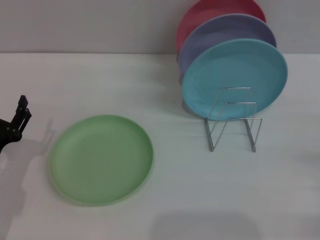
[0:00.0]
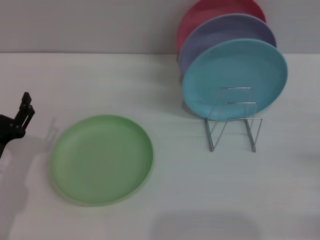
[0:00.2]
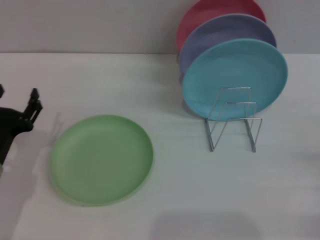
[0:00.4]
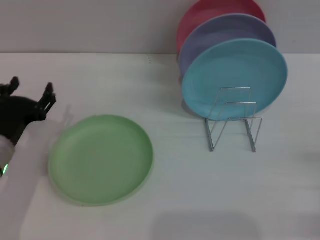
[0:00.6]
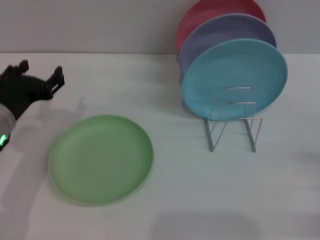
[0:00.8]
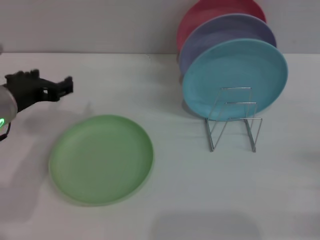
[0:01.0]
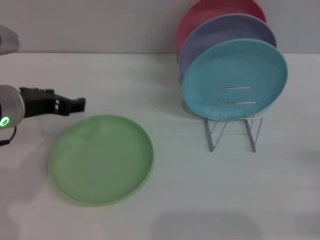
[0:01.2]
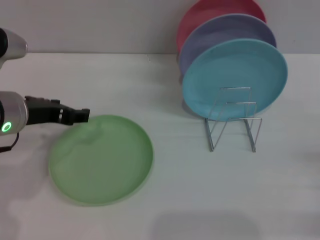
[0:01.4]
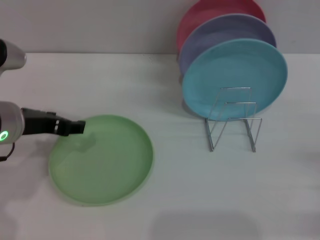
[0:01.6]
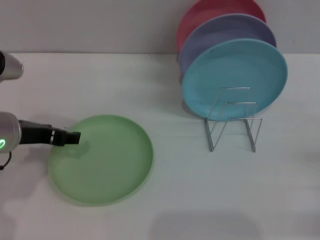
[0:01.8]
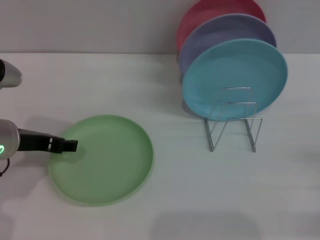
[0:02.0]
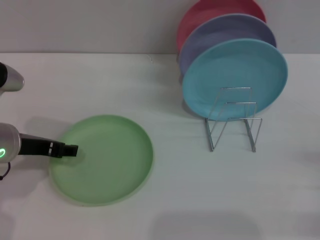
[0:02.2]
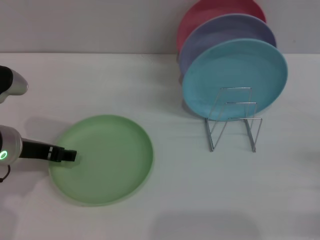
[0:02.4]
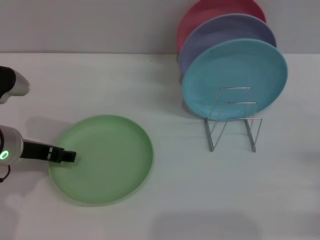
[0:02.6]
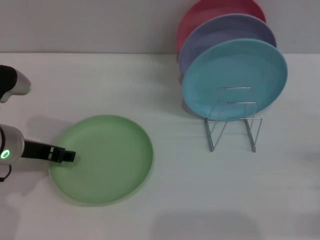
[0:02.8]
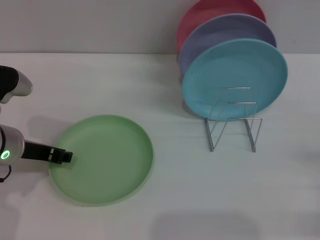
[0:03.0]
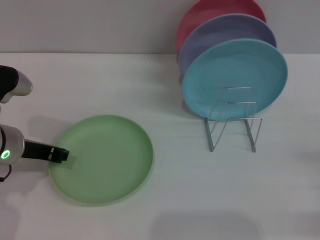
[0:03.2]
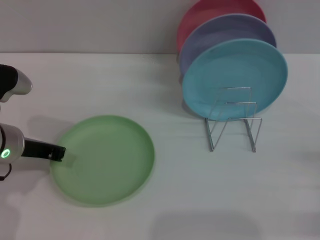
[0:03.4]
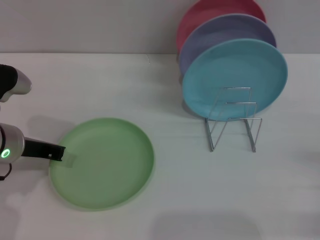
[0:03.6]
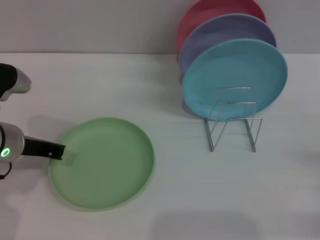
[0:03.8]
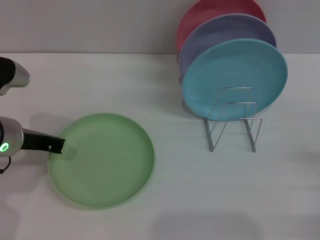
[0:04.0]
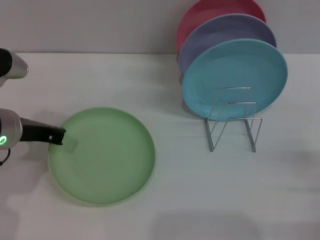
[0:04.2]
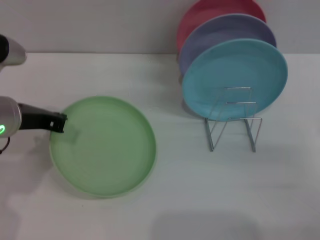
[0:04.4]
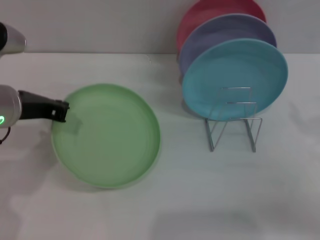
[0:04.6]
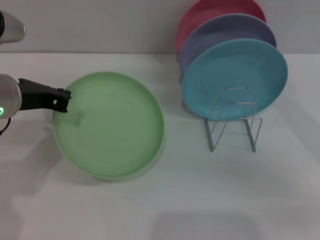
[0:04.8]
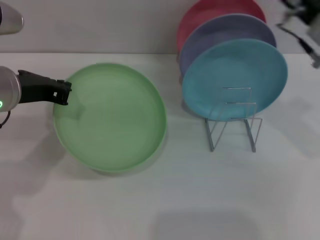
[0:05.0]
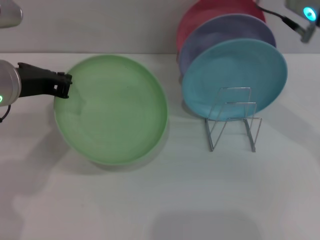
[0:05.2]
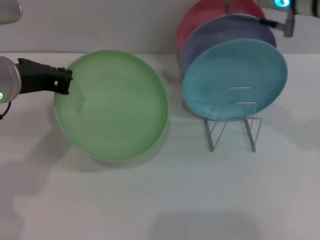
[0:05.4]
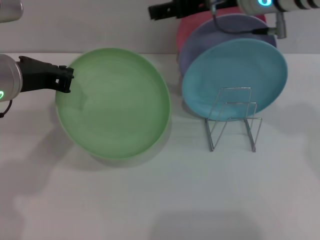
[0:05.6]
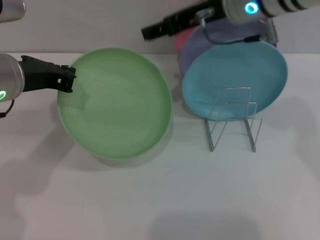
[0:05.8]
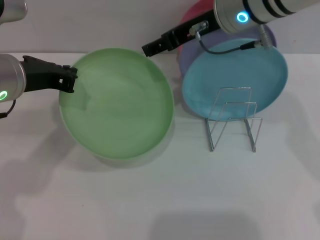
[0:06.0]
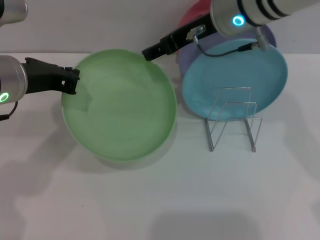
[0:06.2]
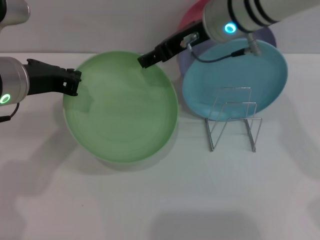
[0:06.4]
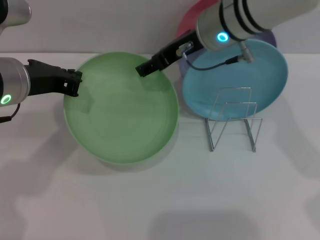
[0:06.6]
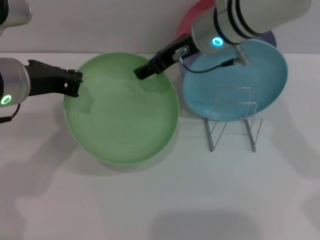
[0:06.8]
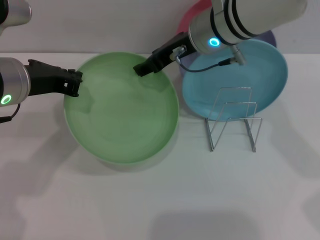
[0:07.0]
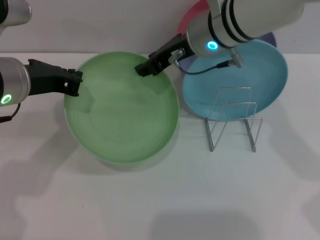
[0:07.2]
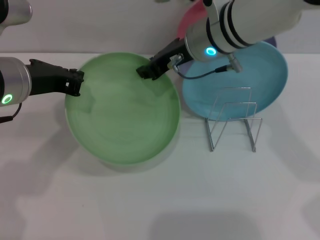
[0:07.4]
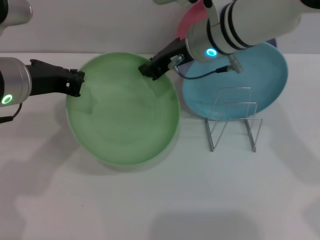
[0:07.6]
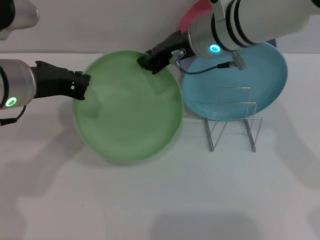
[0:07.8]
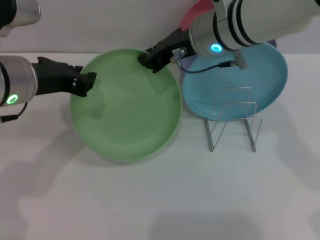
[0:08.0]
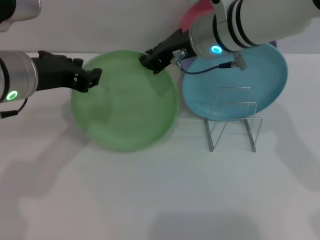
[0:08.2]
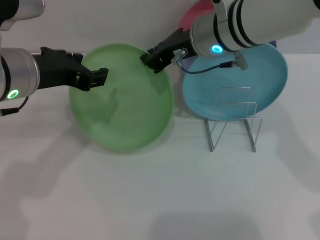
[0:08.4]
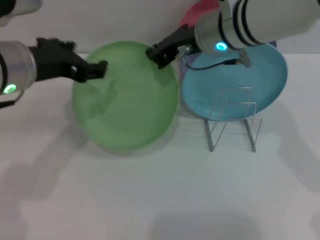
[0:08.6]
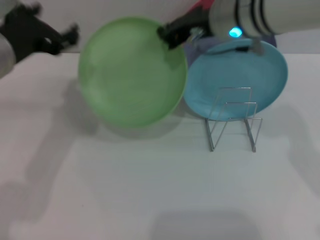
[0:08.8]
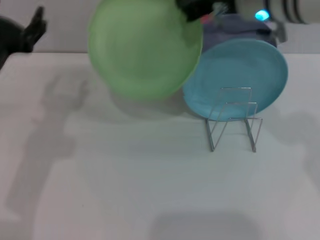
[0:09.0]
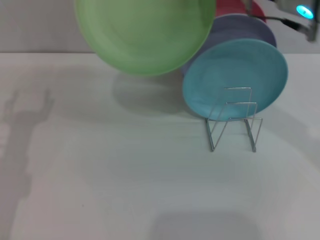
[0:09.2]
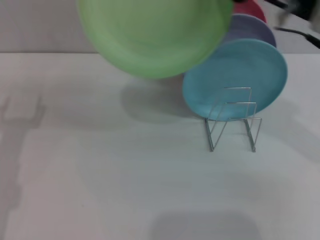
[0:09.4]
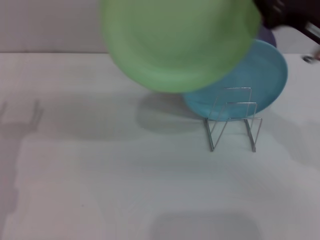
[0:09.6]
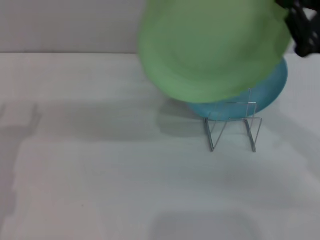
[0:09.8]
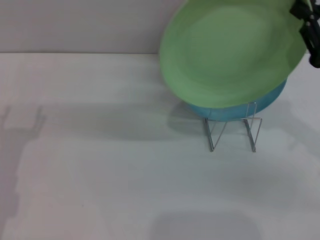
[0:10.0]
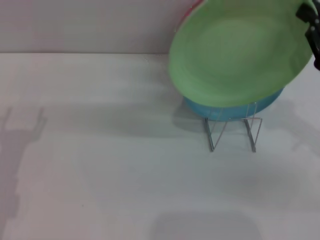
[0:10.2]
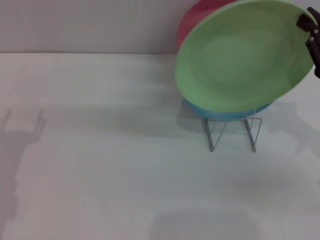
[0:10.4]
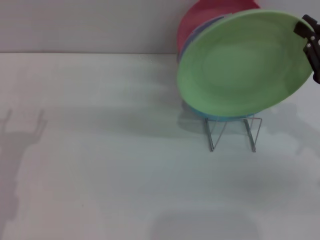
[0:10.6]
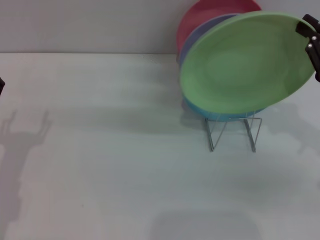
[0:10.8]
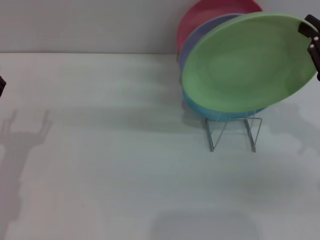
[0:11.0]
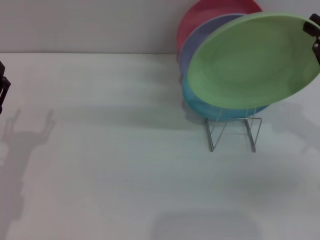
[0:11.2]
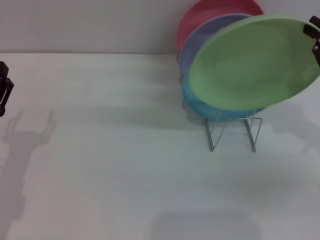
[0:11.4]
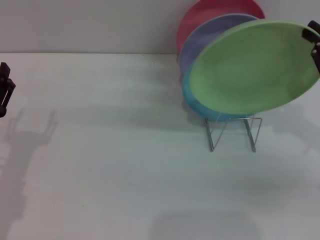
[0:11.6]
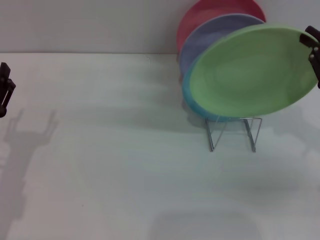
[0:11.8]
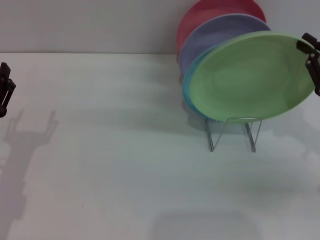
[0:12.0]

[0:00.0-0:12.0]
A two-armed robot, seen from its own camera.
Task of the whole recording: Grip the plate with one hand, pass it to the other, then set it on the shelf.
Step, 0:00.0 to 0:04.8: Pick up the plate with the left gripper.
Step, 0:05.0 to 0:09.4: Pass the plate from the left gripper to the right gripper.
0:00.0 to 0:01.6: The left gripper goes approximately 15 cm upward, forward and to the right.
0:01.6 to 0:03.0: The grippers stay close to where they were, moving slightly.
0:03.0 to 0:04.4: The right gripper shifts by some 5 cm; the left gripper closes up.
0:04.4 to 0:06.0: The right gripper shifts approximately 35 cm to the left, forward and upward, while the left gripper travels upward by roughly 5 cm.
0:06.0 to 0:07.6: The right gripper changes place by about 5 cm, and closes.
0:07.6 to 0:09.0: The right gripper heads to the right and upward, covering approximately 10 cm, while the left gripper ends up approximately 5 cm from where it was, and opens its fingers.
0:09.0 to 0:10.4: The left gripper goes some 15 cm downward, to the left and backward. The right gripper shifts about 20 cm to the right, backward and downward.
0:10.4 to 0:12.0: The grippers stay close to where they were, moving slightly.

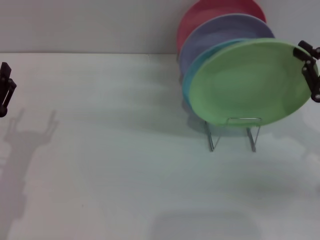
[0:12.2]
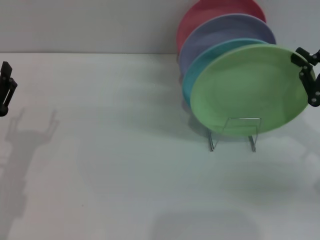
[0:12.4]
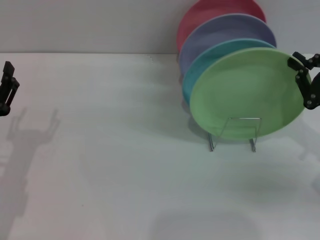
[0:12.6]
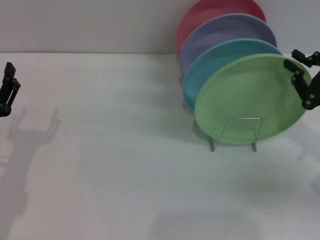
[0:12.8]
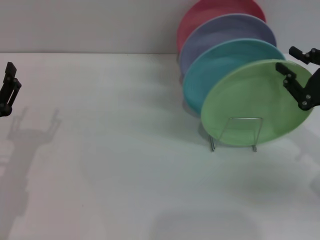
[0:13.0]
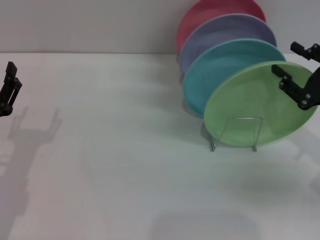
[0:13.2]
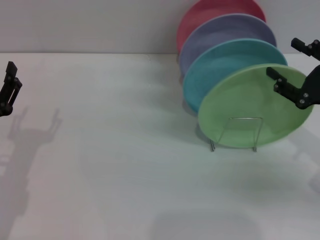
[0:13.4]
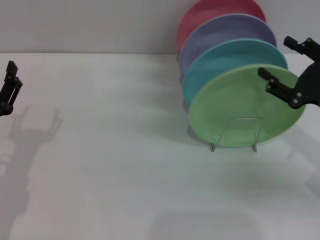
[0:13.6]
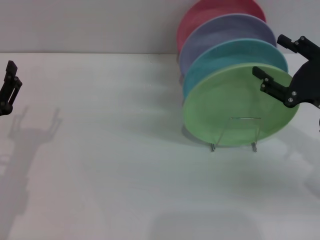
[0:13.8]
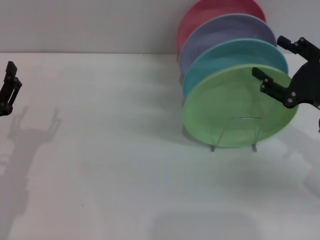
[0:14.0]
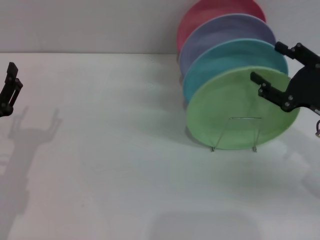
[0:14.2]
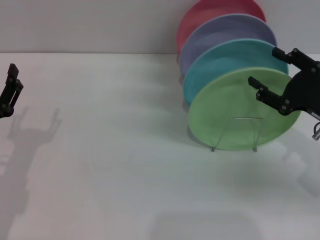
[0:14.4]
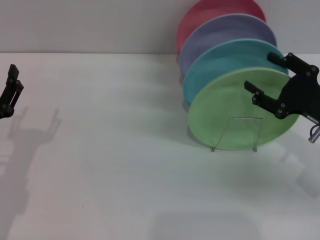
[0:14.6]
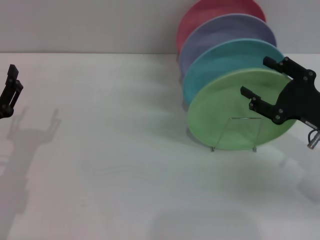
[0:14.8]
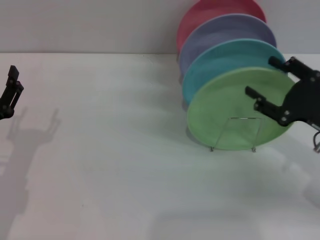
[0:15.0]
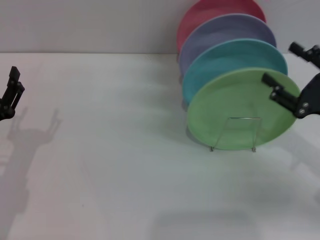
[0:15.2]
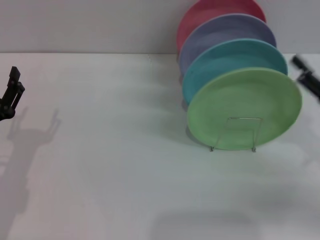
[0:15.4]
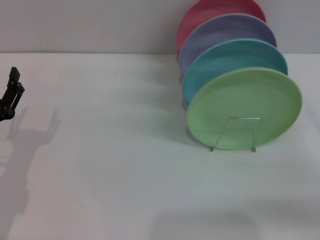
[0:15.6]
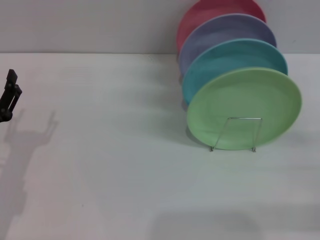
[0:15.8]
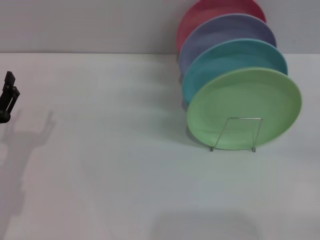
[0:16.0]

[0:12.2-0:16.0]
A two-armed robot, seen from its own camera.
Task of the whole recording: Grip the plate with one hand, pass it to the other, then set it on the shelf.
0:12.2 to 0:13.4: The right gripper opens up.
0:13.4 to 0:14.8: The right gripper opens its fingers.
0:14.8 to 0:16.0: The right gripper moves to the right and backward, approximately 15 cm.

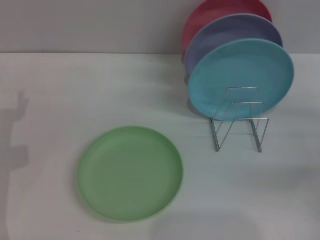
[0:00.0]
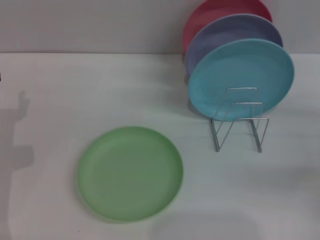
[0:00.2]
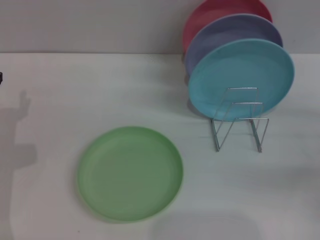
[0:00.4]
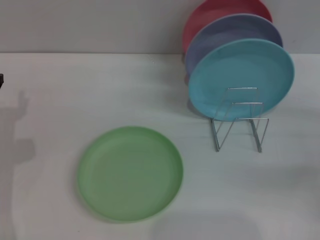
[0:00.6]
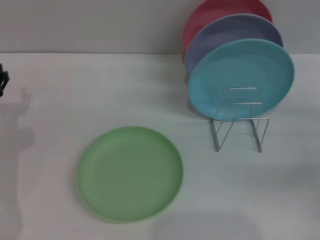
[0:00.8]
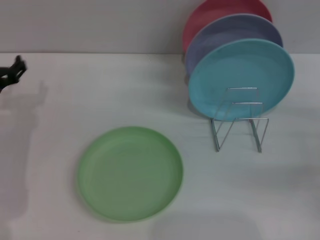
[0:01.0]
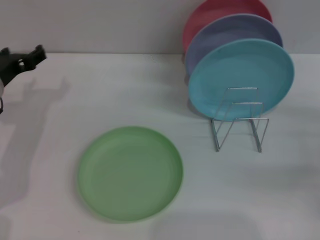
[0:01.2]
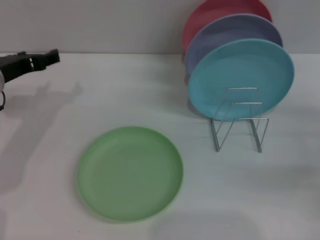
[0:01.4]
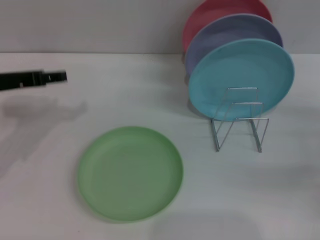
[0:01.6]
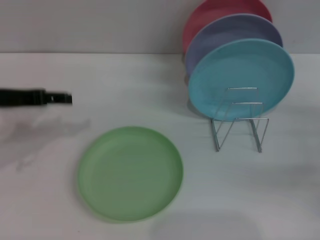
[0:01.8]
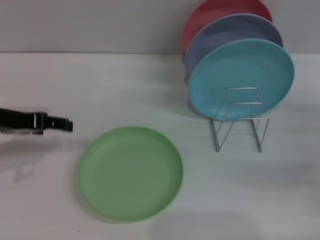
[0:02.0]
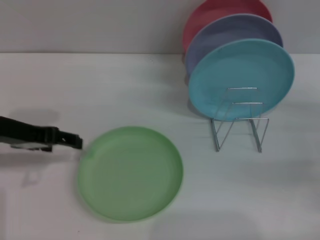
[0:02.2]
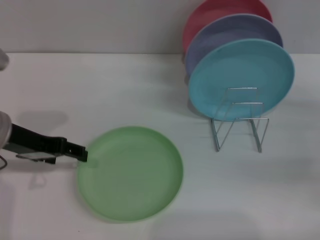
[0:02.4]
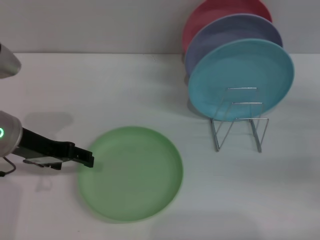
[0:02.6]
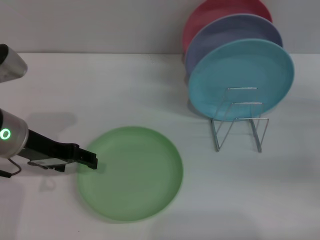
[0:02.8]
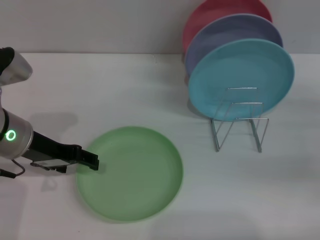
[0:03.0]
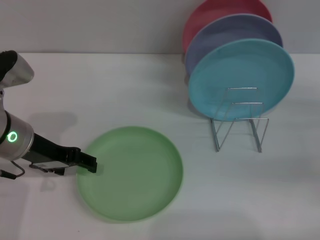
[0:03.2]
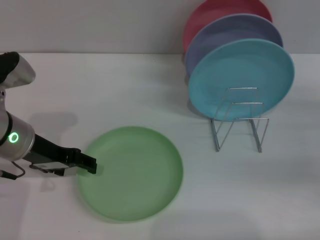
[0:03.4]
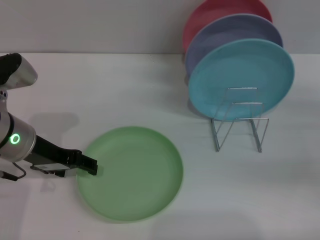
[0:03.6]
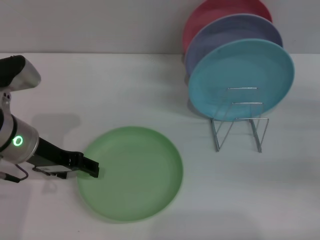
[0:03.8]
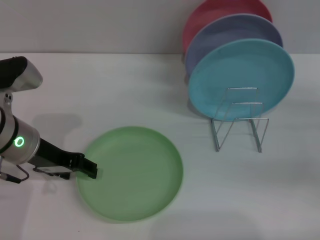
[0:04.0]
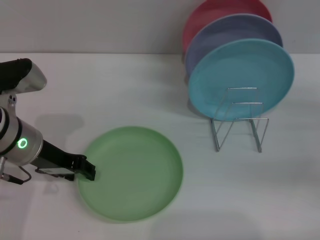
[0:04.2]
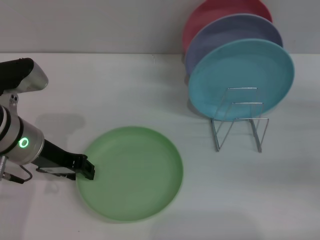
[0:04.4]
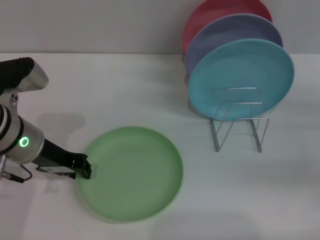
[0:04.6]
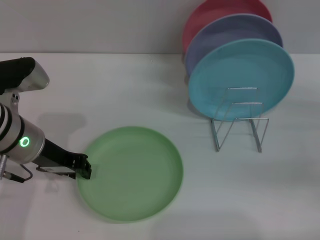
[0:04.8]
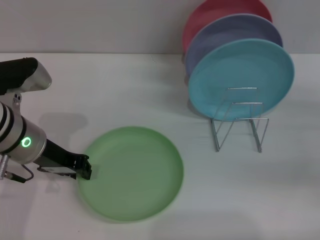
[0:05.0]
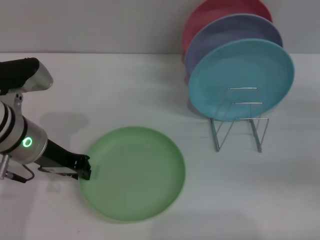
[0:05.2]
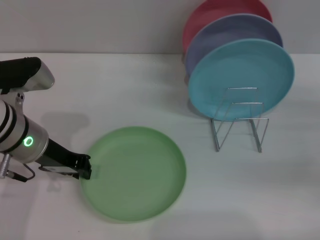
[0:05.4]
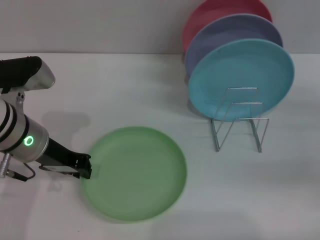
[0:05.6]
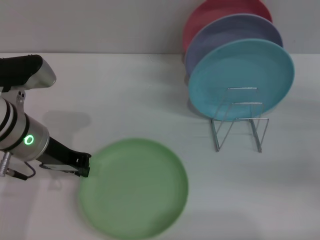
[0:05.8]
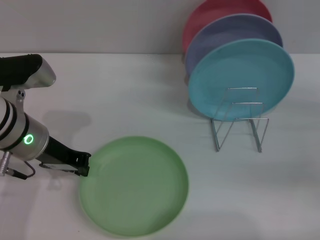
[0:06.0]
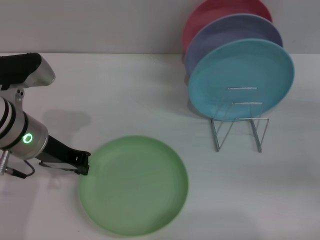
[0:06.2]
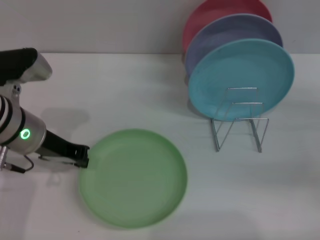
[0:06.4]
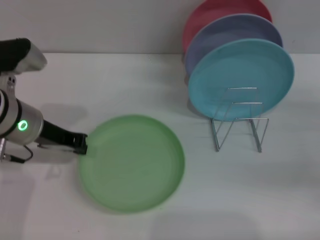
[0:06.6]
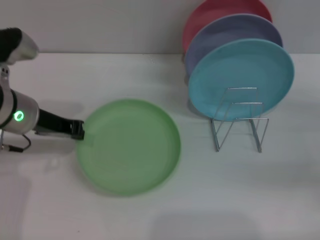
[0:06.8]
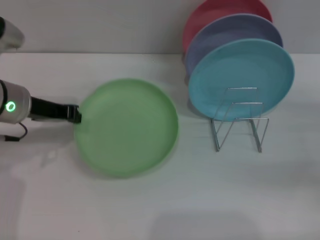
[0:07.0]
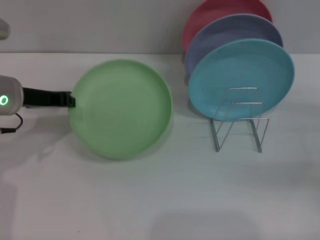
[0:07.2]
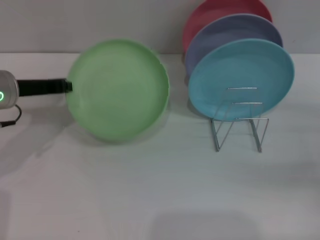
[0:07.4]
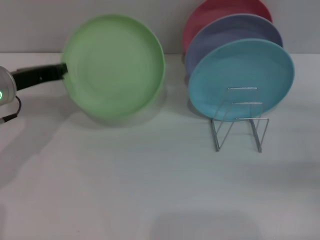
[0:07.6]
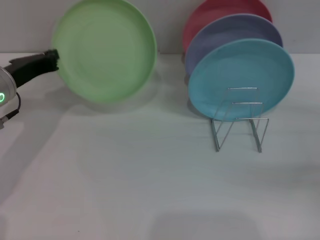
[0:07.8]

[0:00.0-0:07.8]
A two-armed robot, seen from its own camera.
Task of the whole recording: Grip the plate with one hand, pass it to the other, then set it on the shelf.
Step, 0:00.0 to 0:07.4: Pick up the plate with the left gripper.
0:00.0 to 0:01.6: The left gripper moves upward, approximately 15 cm.
0:01.6 to 0:03.2: The left gripper is displaced to the right by roughly 5 cm.
0:03.2 to 0:04.6: The left gripper closes up.
0:04.6 to 0:06.2: The left gripper closes its fingers.
0:06.2 to 0:07.8: The left gripper travels to the left by about 5 cm.
